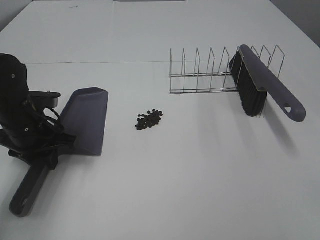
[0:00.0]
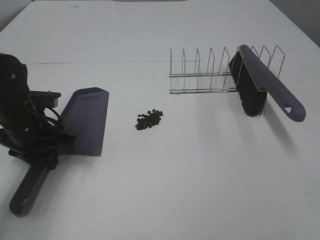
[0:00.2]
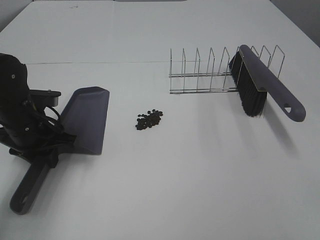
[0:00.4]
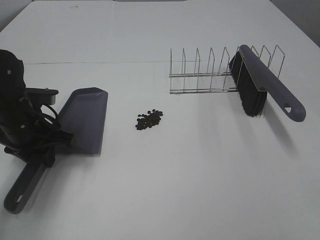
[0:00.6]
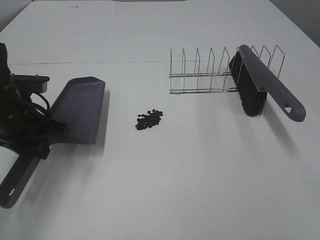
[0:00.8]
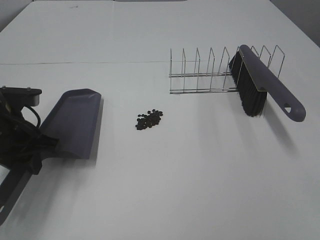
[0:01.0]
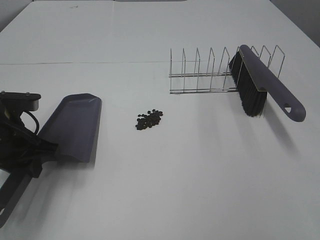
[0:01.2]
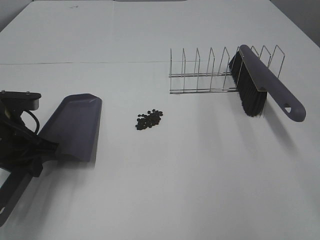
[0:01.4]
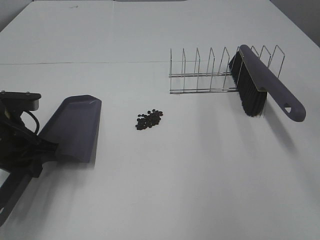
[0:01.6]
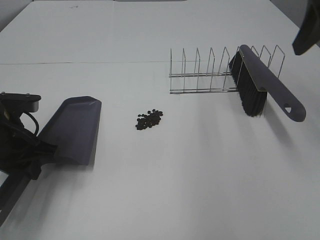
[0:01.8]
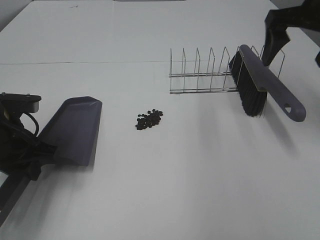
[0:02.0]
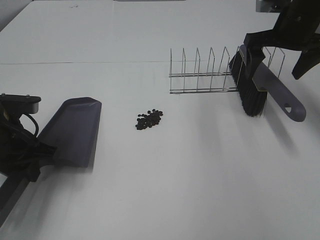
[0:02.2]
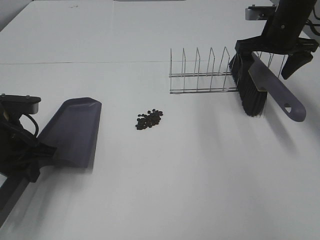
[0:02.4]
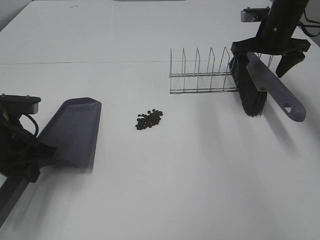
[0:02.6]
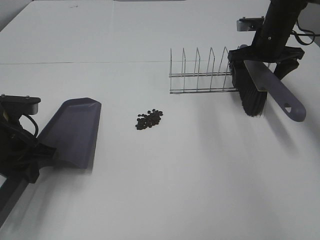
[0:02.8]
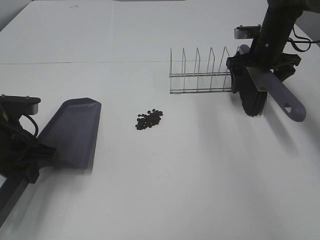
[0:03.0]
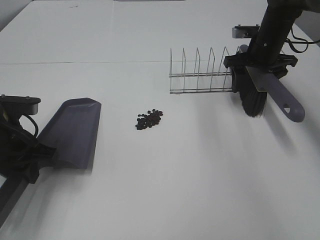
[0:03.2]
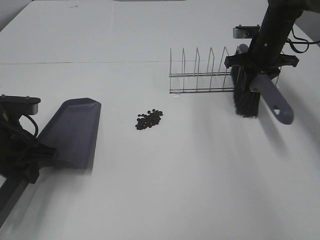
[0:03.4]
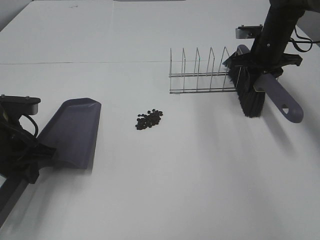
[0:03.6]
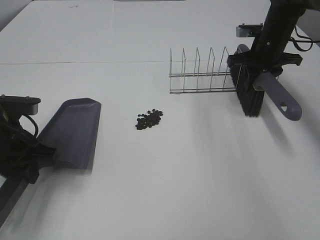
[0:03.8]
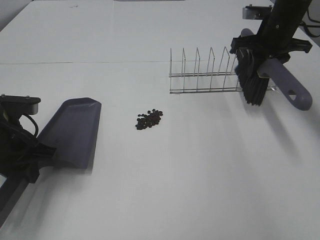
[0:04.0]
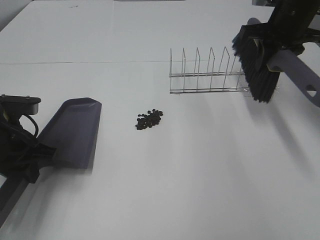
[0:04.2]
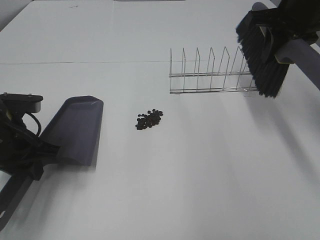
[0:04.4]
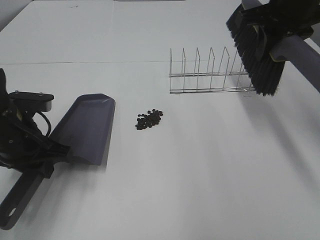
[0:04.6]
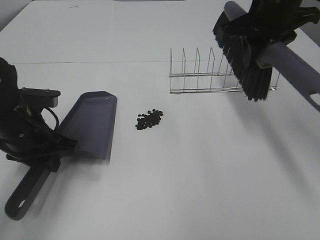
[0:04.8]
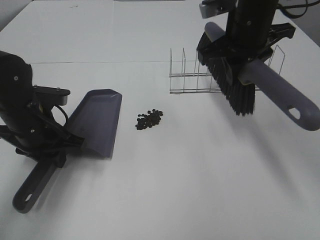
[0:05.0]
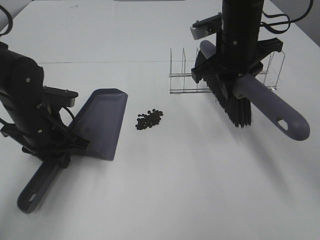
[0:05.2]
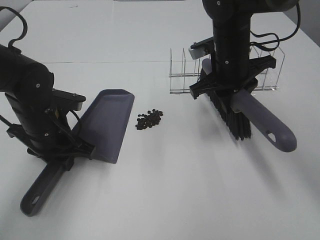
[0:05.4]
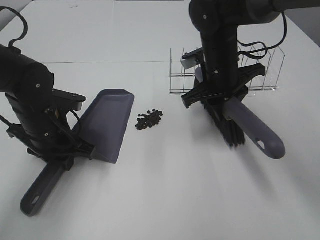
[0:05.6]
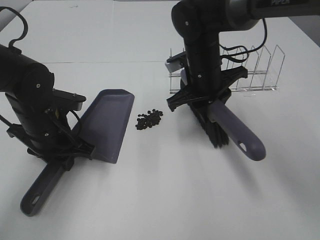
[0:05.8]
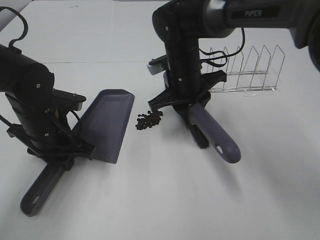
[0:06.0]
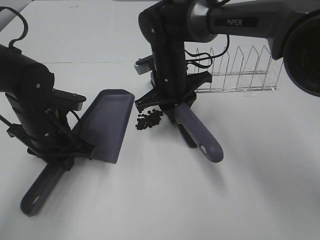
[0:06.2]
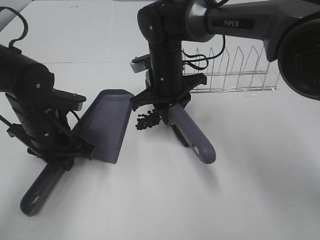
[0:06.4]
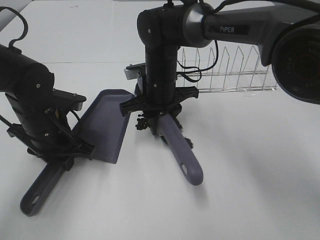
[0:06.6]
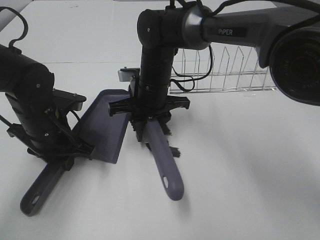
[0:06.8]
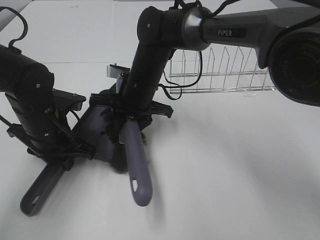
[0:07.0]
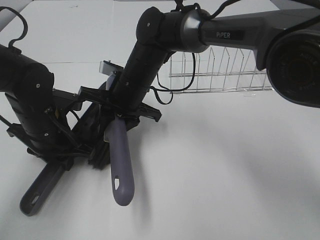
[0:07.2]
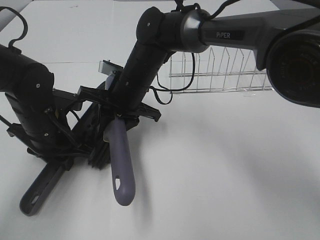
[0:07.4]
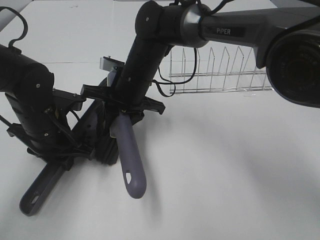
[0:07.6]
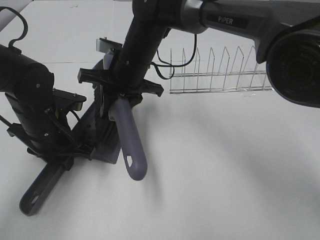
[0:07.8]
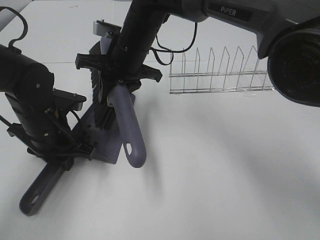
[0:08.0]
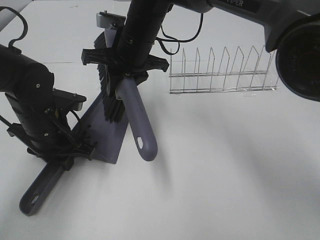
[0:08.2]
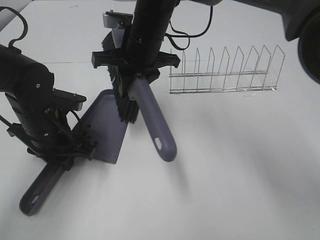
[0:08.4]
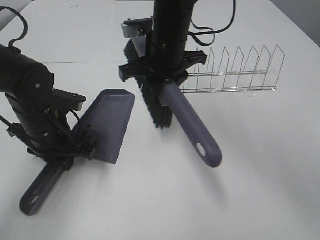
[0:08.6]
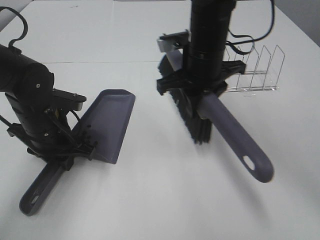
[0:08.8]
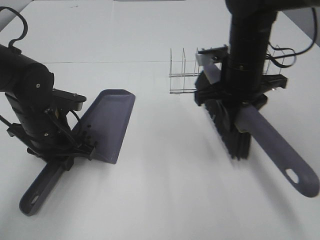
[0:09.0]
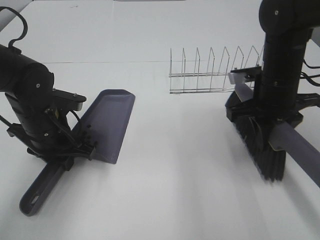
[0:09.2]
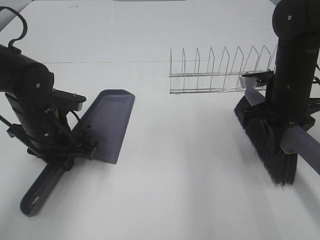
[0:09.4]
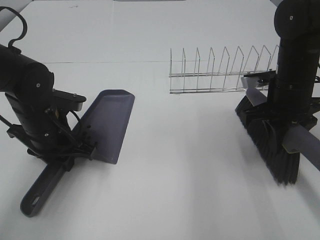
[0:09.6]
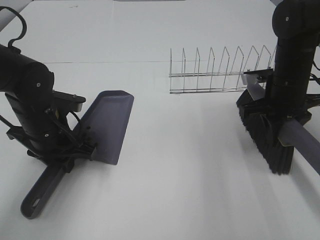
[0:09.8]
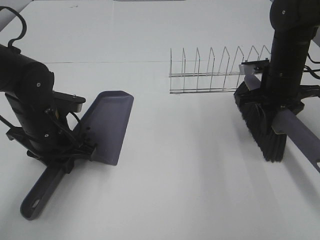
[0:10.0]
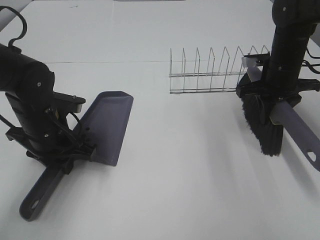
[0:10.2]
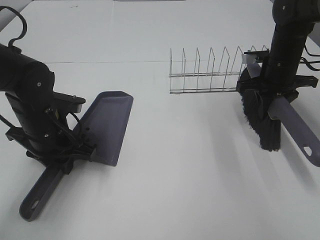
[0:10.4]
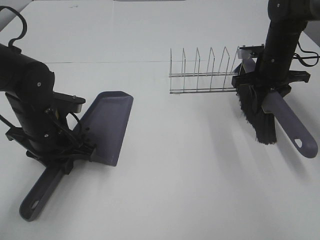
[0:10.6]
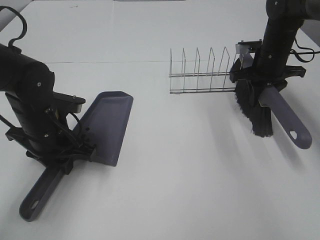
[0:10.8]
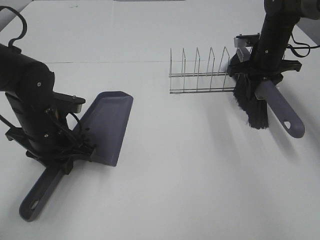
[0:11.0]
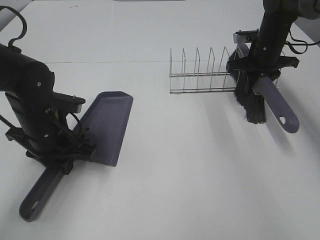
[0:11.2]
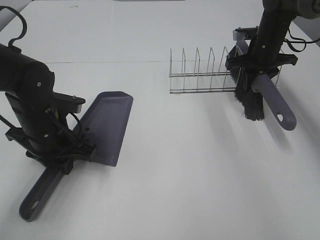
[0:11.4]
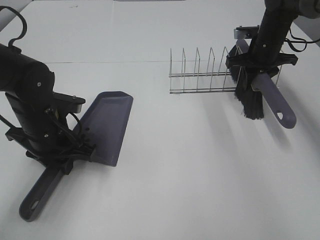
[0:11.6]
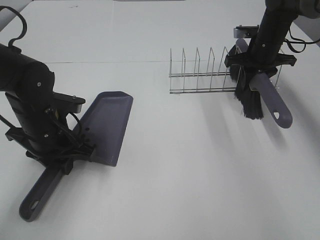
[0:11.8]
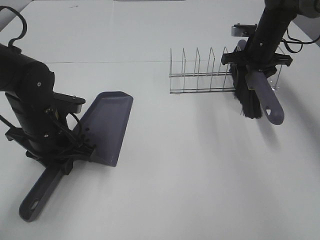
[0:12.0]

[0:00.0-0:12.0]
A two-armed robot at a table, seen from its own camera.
Task of the whole recording: Sweep Coffee Bean.
Step, 0:00.0 to 0:05.2: Left hand: move the dustpan to the left side of the coffee beans.
Step, 0:01.0 to 0:03.4: Right hand:grab the broom.
Step, 0:03.6 to 0:07.8: Right hand:sweep the coffee beans into the dustpan.
0:00.0 to 0:01.6: The left gripper changes place by roughly 5 cm.
0:01.6 to 0:03.0: The right gripper travels forward and downward by roughly 35 cm.
0:03.0 to 0:04.4: The right gripper heads upward and backward, covering approximately 15 cm, and closes up.
0:04.4 to 0:06.0: The right gripper goes roughly 25 cm to the left and downward, while the left gripper shifts by some 5 cm.
0:06.0 to 0:07.6: The right gripper travels to the left by about 10 cm.
0:07.6 to 0:09.0: The right gripper shifts some 20 cm to the right.
0:09.0 to 0:10.4: The right gripper heads to the right and forward, covering approximately 15 cm.
0:10.4 to 0:12.0: The right gripper goes roughly 10 cm forward.

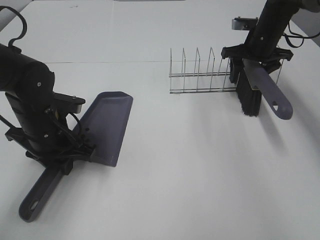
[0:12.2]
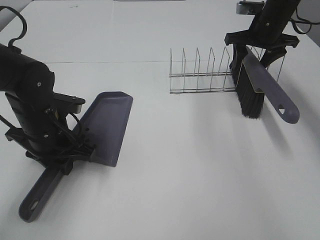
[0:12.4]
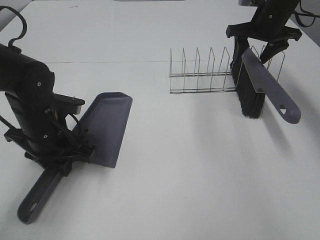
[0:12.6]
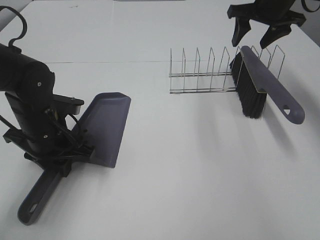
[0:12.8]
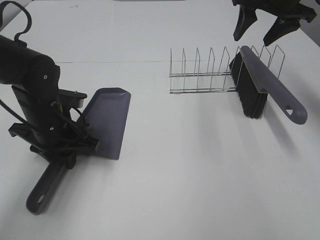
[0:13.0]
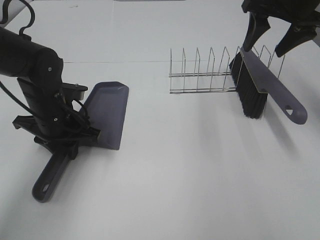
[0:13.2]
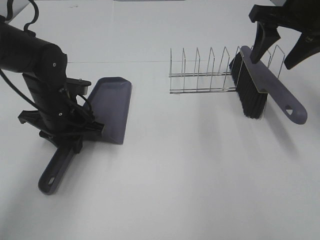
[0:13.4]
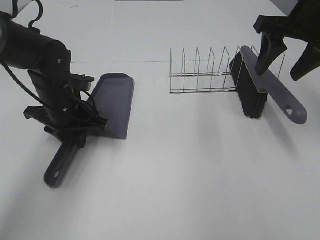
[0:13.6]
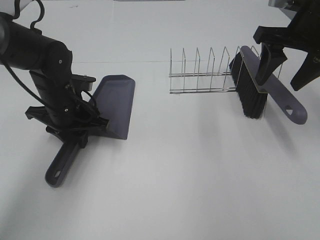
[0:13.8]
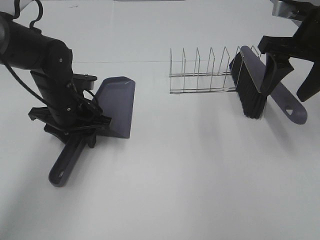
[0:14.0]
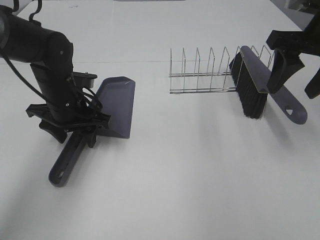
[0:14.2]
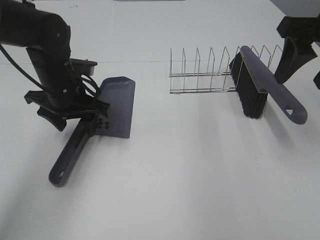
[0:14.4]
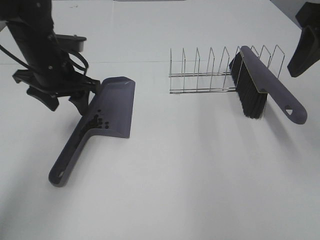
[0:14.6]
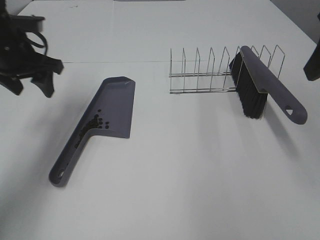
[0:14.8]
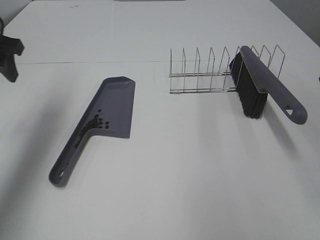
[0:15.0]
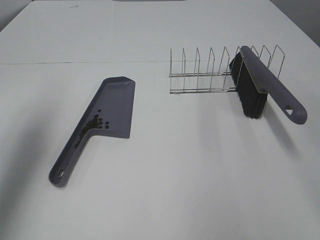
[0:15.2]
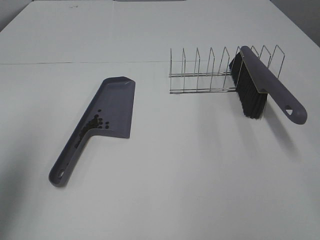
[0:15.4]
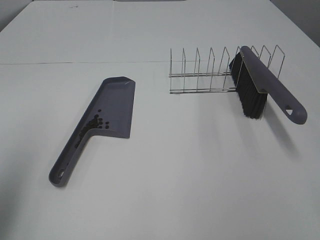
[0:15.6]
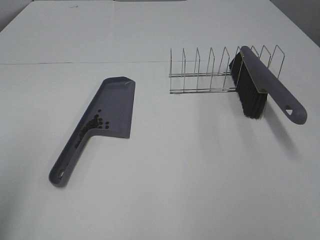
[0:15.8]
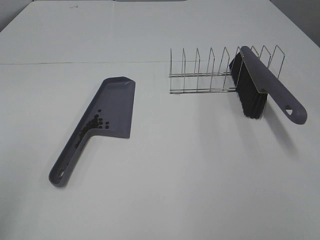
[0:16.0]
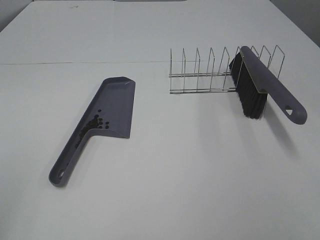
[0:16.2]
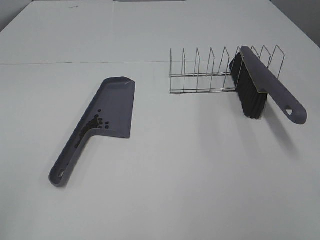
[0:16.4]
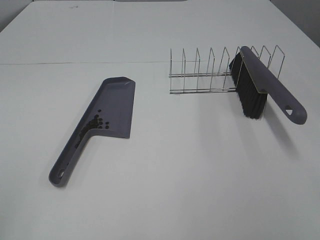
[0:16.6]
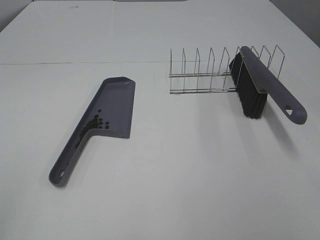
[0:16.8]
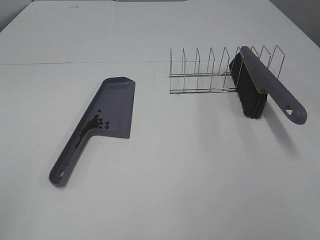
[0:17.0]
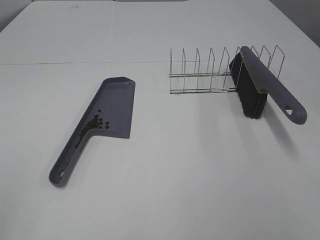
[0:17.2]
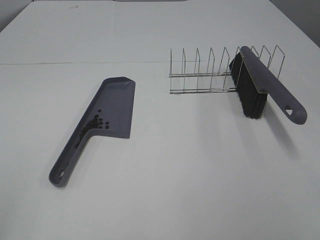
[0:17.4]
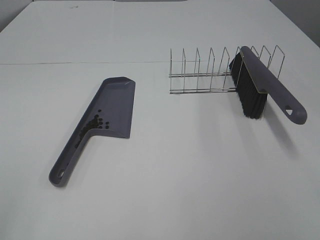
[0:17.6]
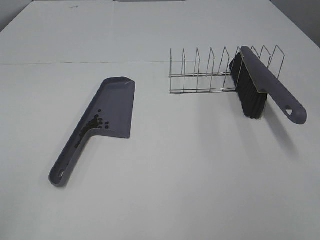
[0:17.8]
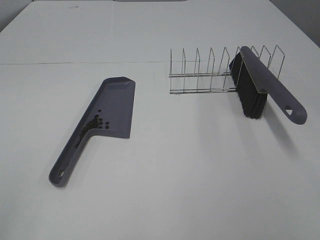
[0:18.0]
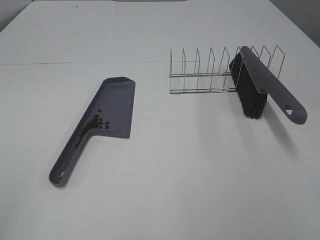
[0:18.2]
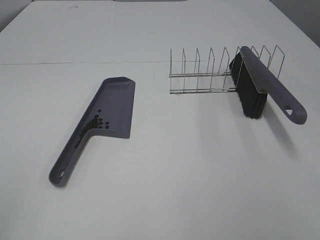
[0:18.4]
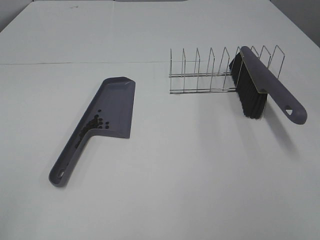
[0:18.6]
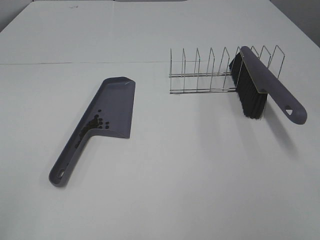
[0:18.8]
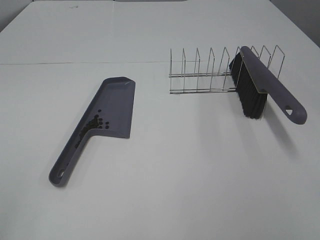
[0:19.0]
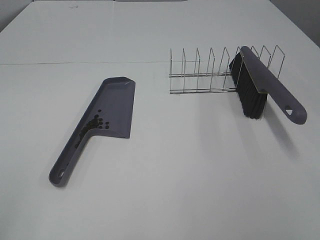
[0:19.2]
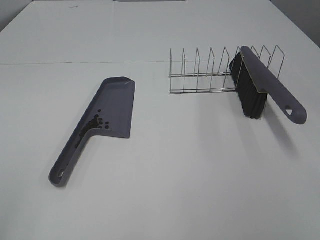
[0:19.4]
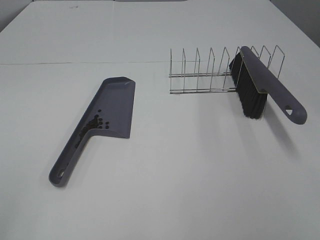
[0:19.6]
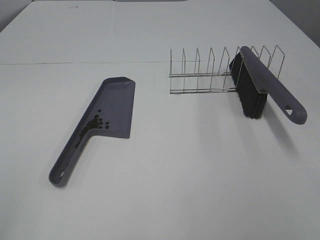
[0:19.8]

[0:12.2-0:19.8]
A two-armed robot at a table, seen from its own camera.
Task of the whole recording: Sweep Coffee Bean.
Step, 0:12.8 to 0:14.0: Left hand:place the dustpan on the table.
0:12.2 to 0:13.8: The right gripper moves backward and upward, some 20 cm. Meanwhile the left gripper travels forward by about 5 cm.
0:13.8 to 0:15.2: The left gripper travels upward, to the left and backward by approximately 25 cm, and opens its fingers. The right gripper goes about 20 cm backward and upward.
0:15.2 to 0:16.8: The left gripper shifts roughly 30 cm backward.
0:16.8 to 0:19.8: Both grippers stay about where they are.

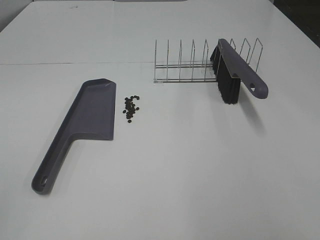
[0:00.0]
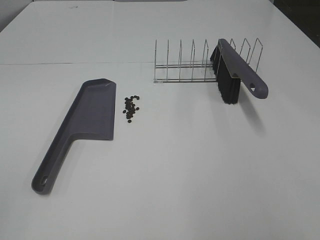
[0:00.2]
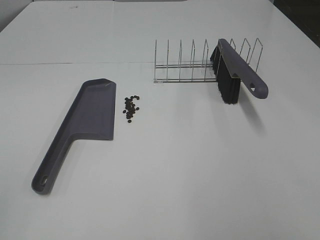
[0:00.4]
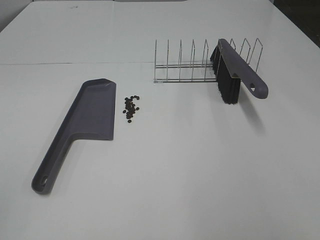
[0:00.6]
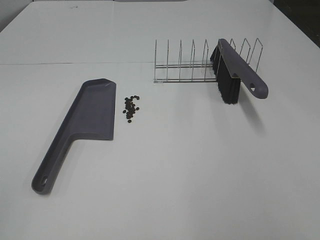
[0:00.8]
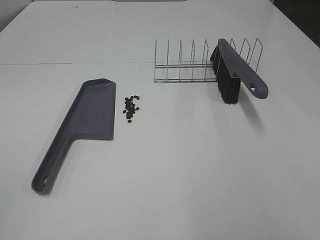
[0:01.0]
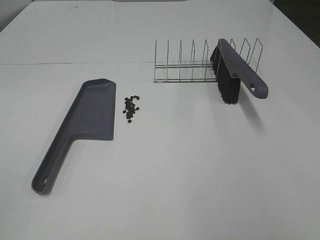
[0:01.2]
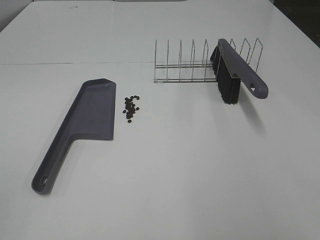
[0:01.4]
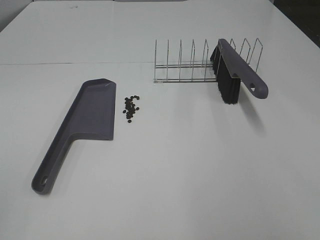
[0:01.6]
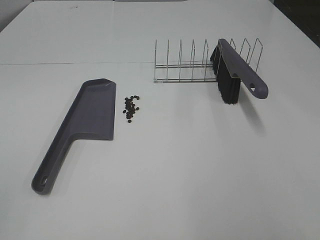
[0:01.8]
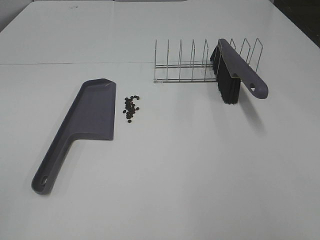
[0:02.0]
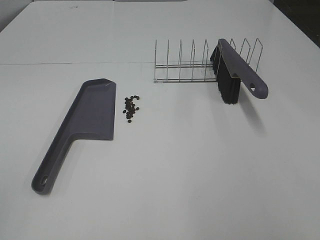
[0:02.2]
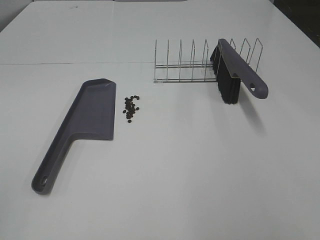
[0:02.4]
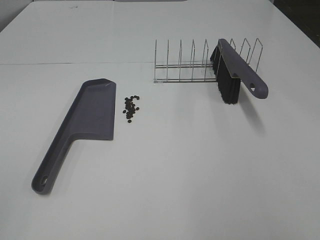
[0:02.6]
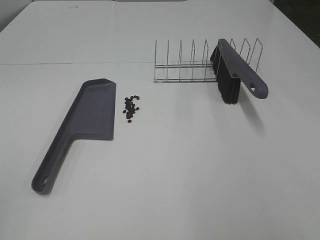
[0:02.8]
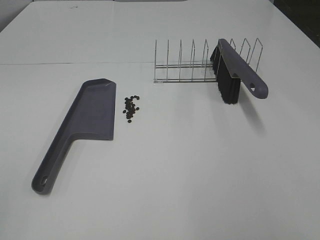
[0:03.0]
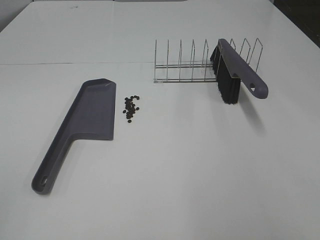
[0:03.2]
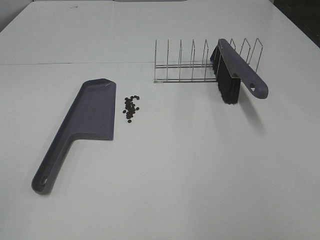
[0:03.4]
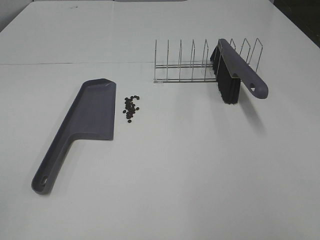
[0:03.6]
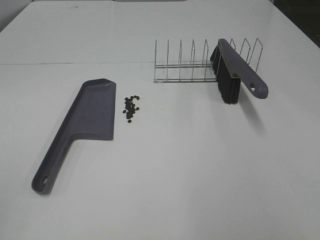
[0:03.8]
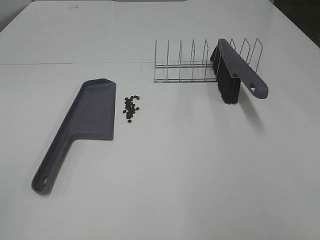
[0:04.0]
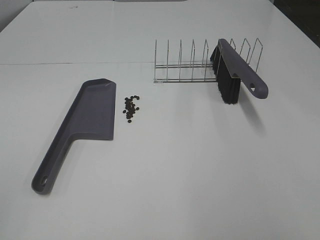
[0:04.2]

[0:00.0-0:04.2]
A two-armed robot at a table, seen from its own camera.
Task of the whole recording: Sweep Coffee Bean.
0:00.0 to 0:04.2: The two grippers keep their place.
